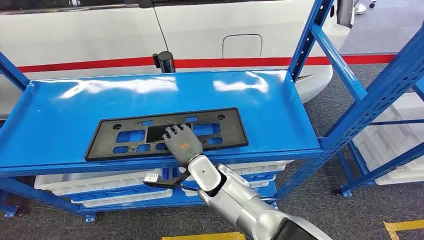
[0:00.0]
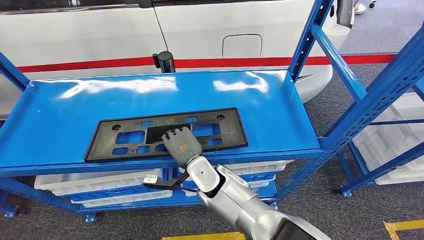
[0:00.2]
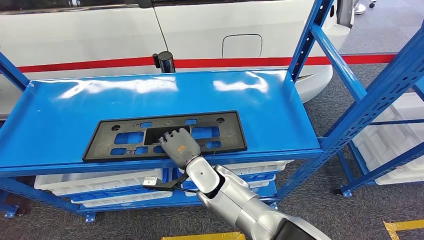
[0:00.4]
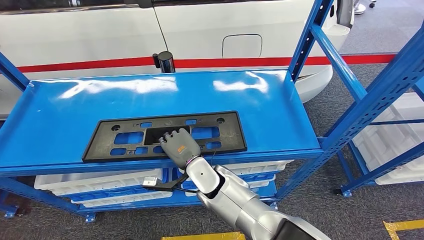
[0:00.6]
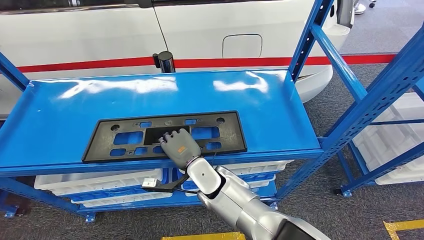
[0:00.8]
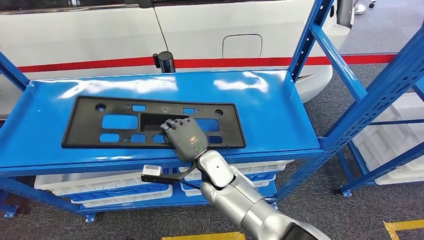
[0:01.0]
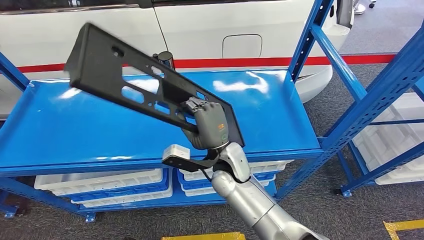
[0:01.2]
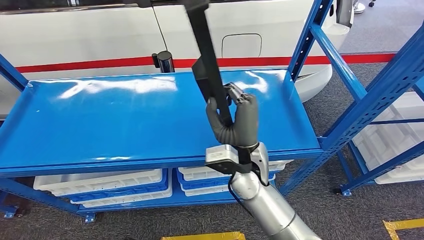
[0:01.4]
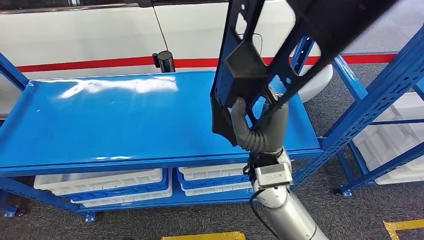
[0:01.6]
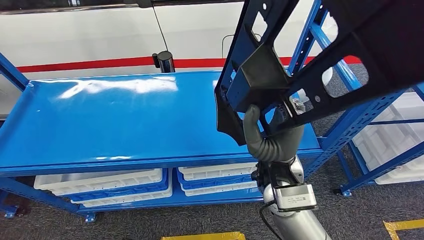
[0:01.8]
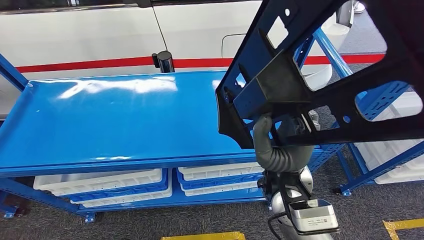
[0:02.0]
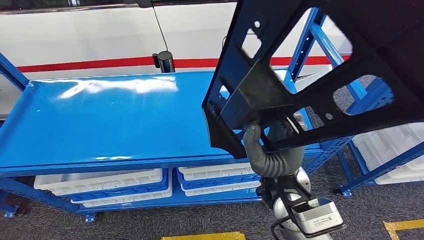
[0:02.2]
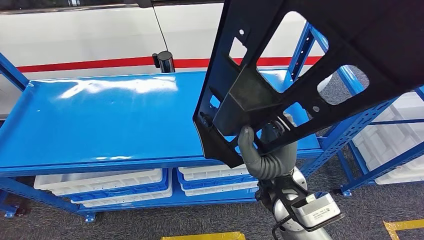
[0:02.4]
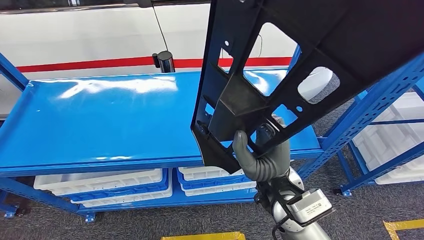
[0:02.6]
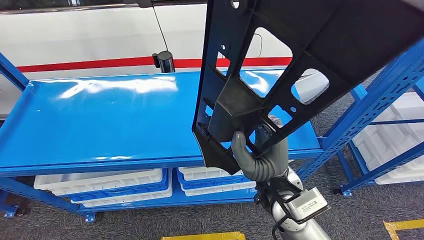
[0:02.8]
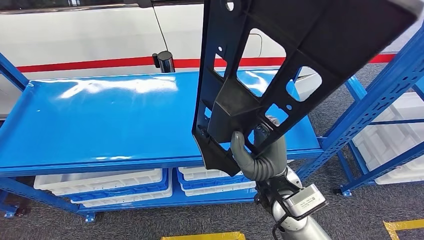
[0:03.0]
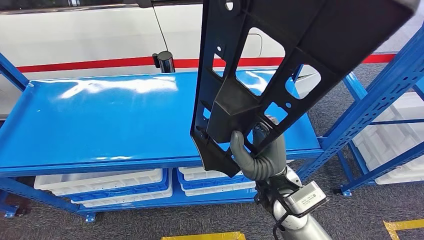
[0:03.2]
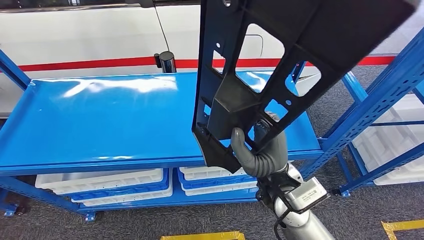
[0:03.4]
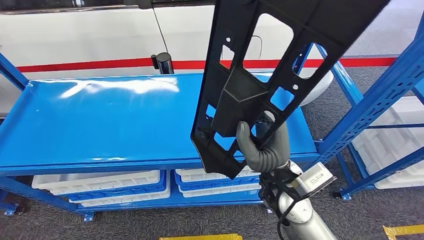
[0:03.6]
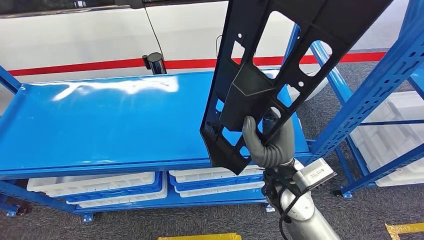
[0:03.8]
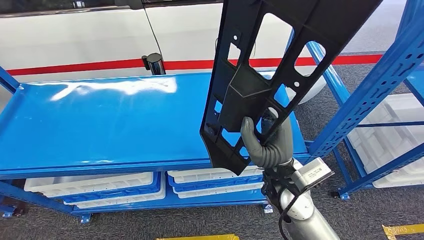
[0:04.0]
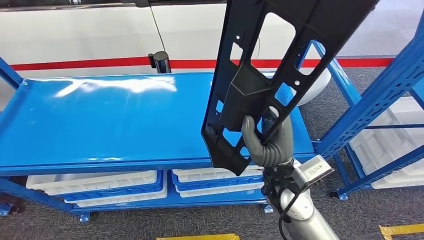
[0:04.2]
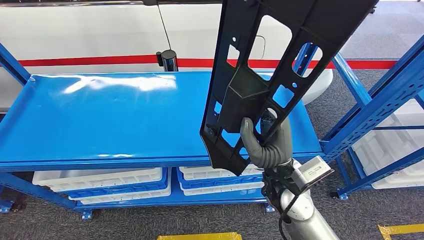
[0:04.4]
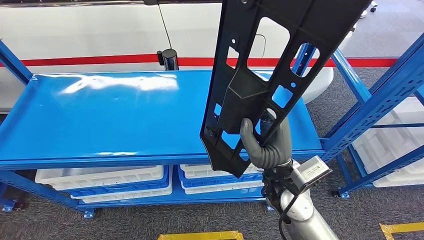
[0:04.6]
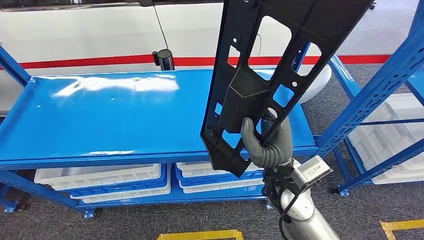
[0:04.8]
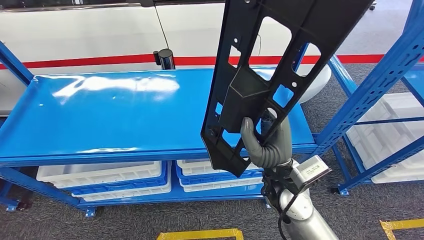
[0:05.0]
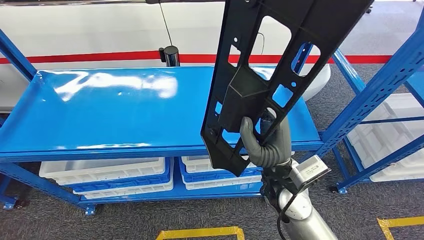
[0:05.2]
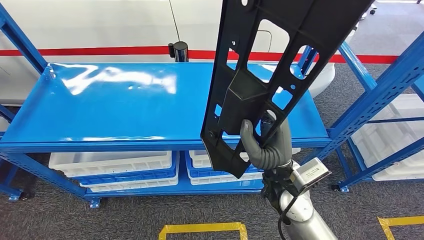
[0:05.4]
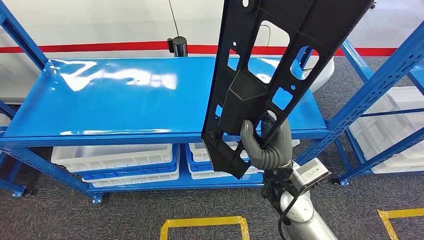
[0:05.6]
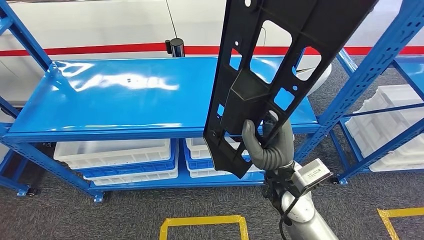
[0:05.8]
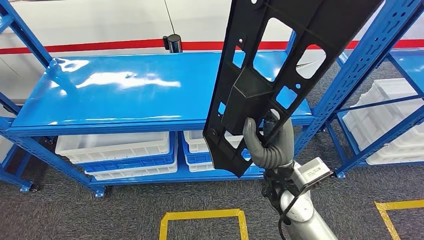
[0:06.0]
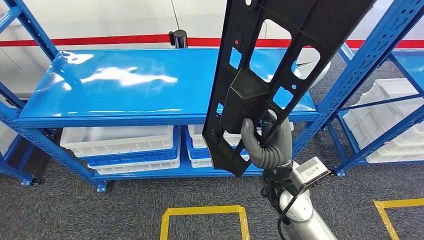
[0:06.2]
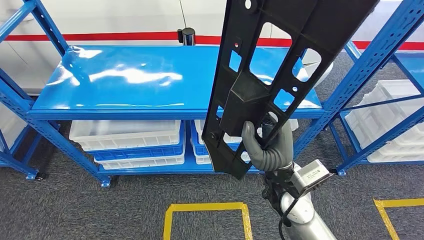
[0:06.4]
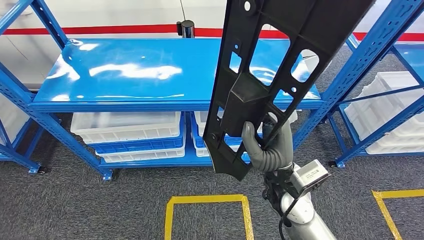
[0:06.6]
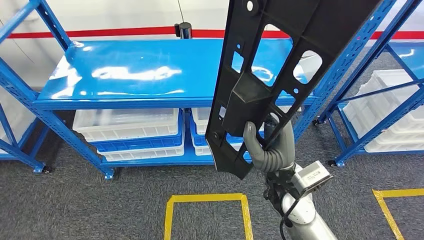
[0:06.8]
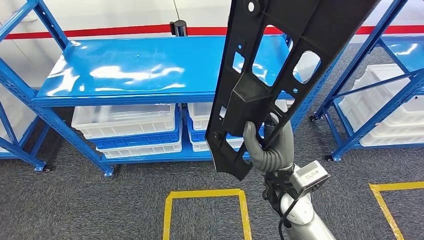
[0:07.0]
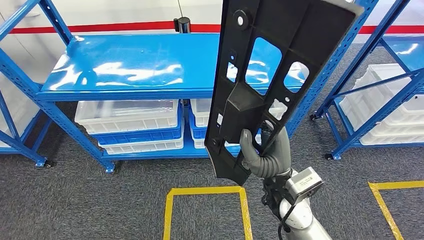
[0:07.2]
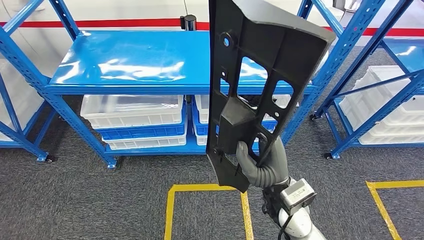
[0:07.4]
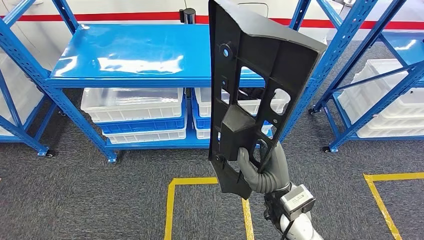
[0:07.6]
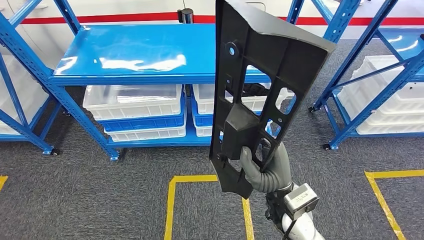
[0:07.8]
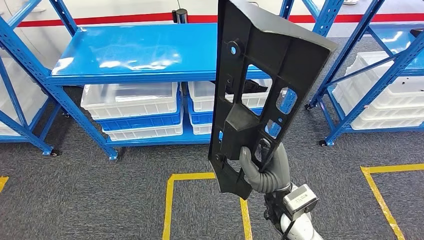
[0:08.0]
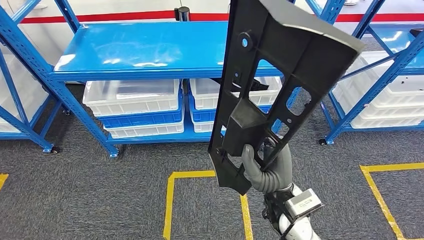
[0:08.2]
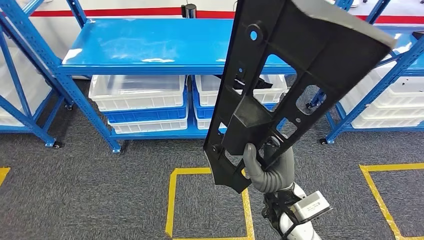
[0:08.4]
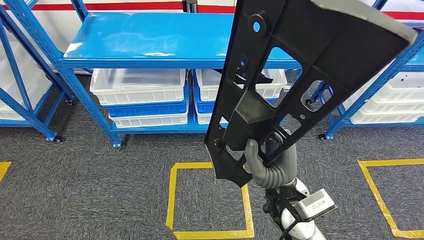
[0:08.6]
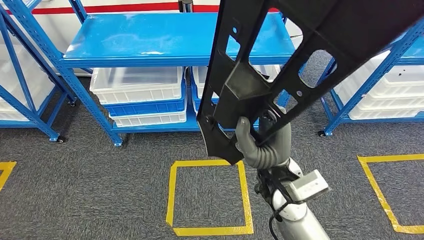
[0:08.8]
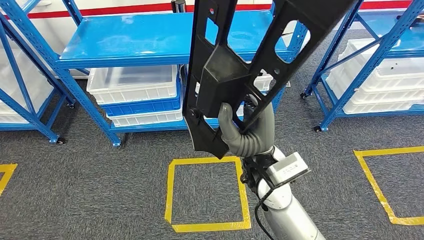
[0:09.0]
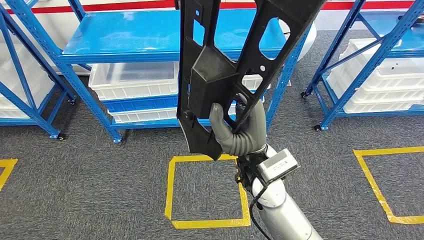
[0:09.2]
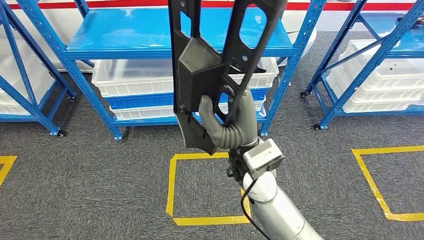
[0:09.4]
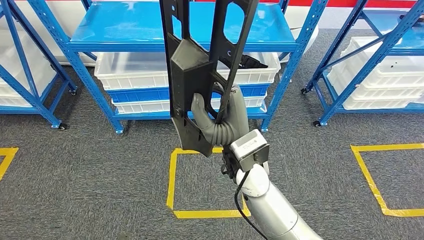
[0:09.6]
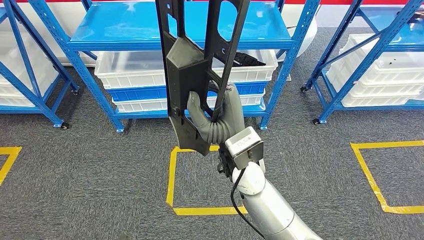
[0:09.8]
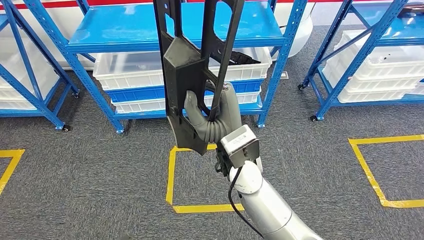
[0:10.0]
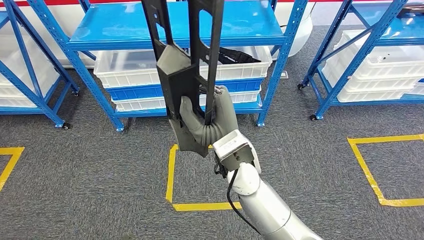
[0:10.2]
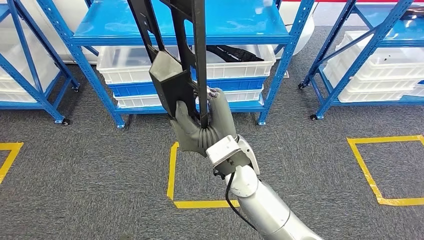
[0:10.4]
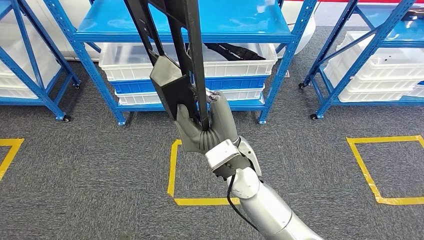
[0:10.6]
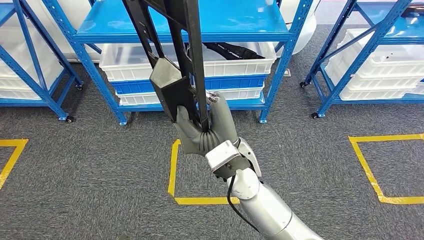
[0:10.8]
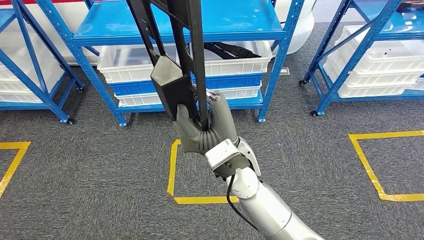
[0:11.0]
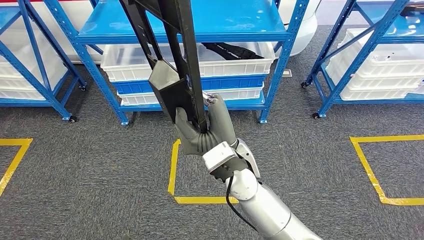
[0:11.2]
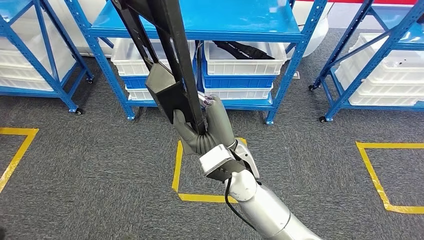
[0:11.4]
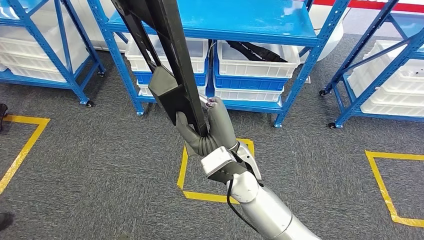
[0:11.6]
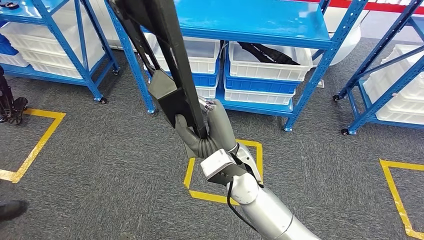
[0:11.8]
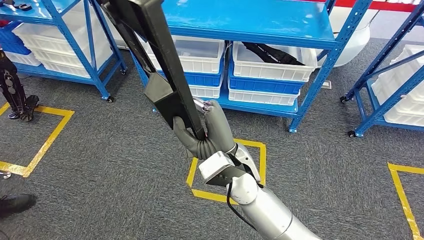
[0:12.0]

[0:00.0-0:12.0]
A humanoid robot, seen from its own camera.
Step, 0:00.0 to 0:04.0: Pick up the large material from the shelf.

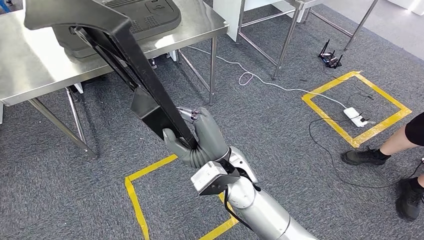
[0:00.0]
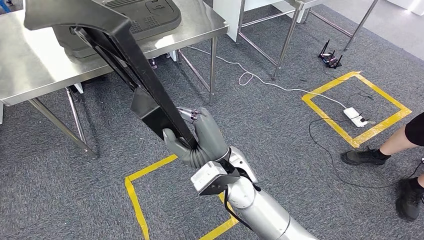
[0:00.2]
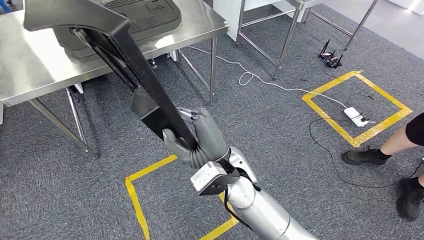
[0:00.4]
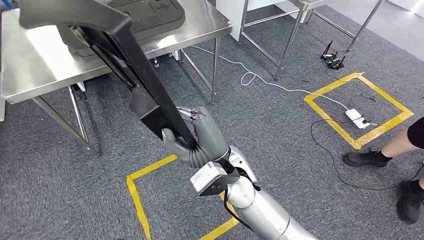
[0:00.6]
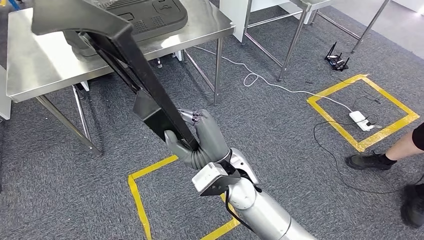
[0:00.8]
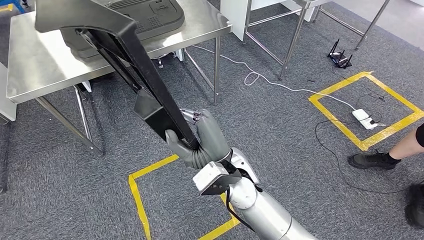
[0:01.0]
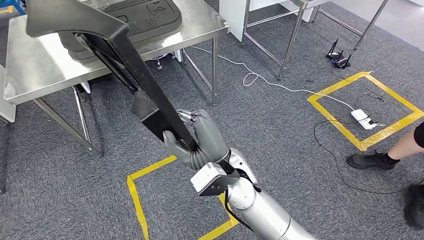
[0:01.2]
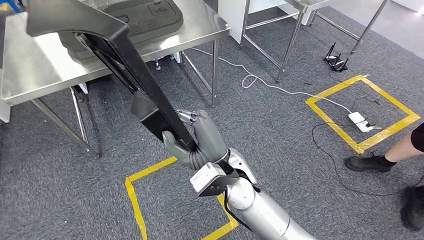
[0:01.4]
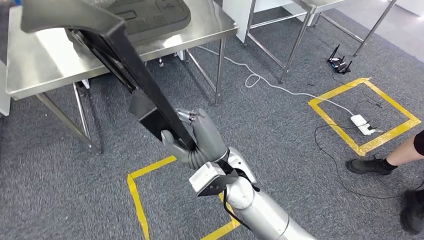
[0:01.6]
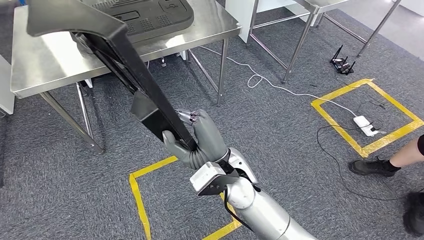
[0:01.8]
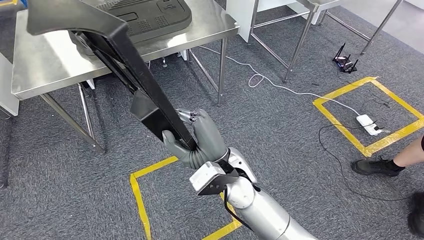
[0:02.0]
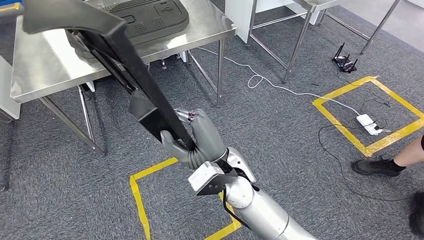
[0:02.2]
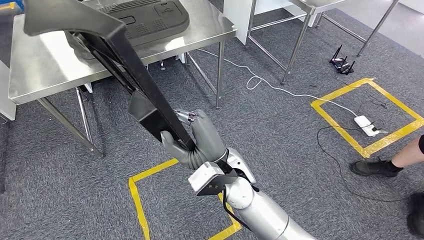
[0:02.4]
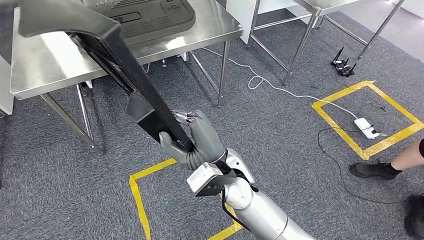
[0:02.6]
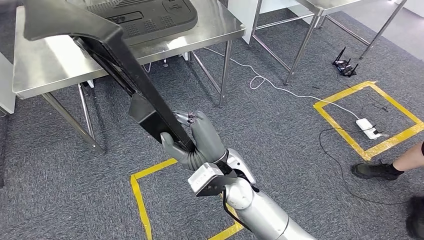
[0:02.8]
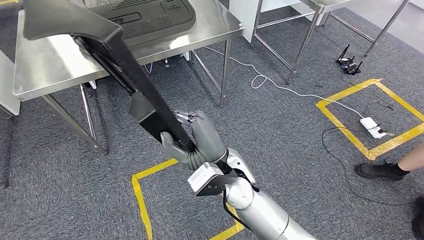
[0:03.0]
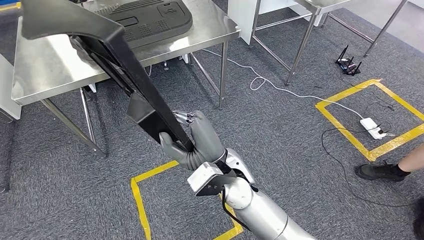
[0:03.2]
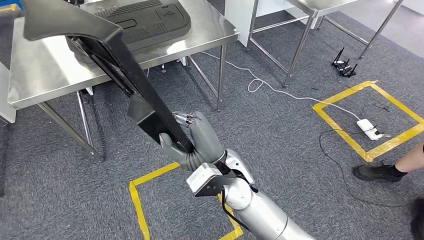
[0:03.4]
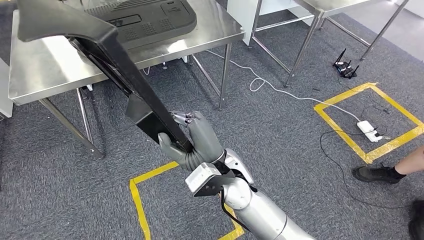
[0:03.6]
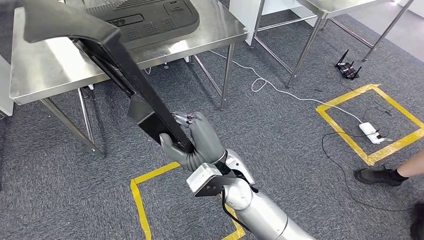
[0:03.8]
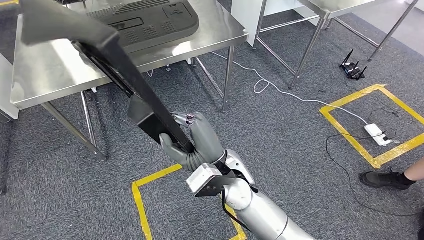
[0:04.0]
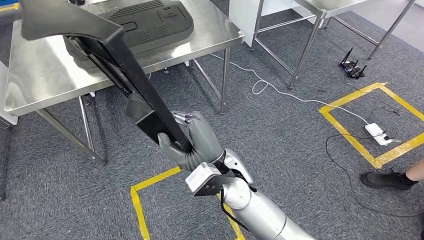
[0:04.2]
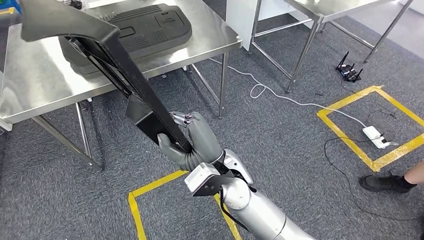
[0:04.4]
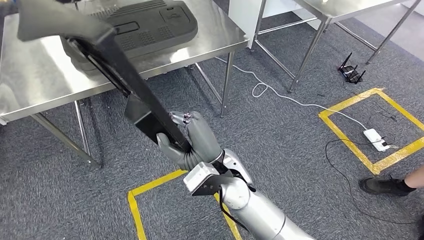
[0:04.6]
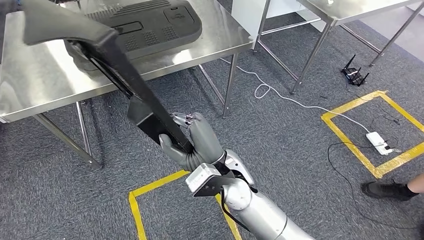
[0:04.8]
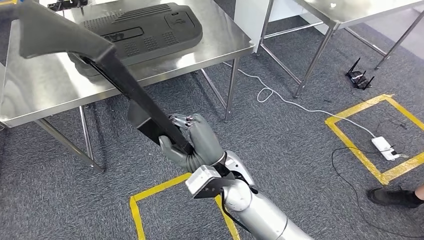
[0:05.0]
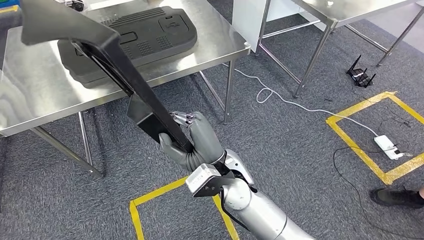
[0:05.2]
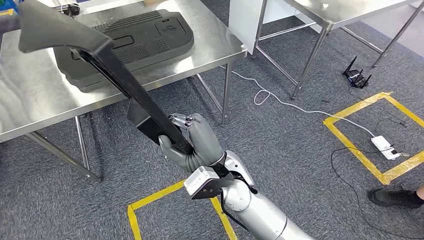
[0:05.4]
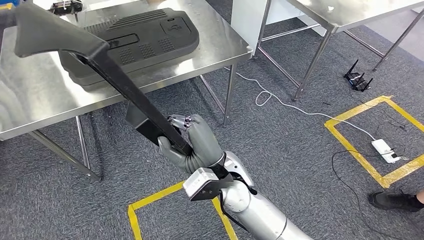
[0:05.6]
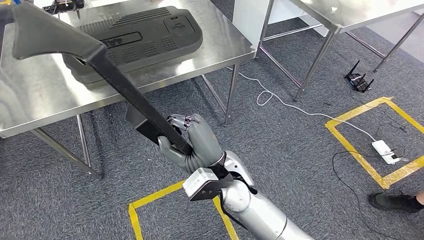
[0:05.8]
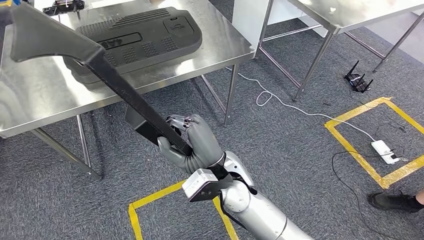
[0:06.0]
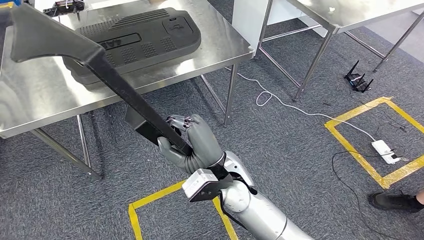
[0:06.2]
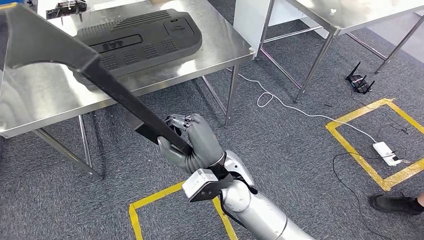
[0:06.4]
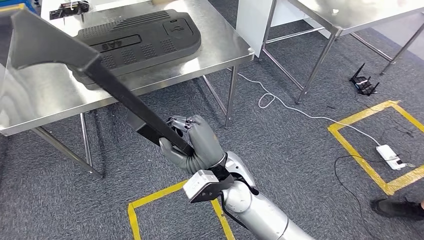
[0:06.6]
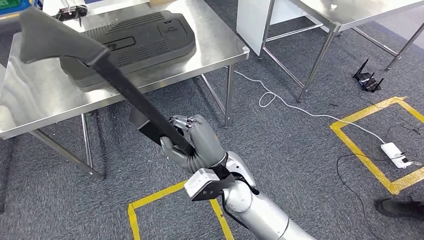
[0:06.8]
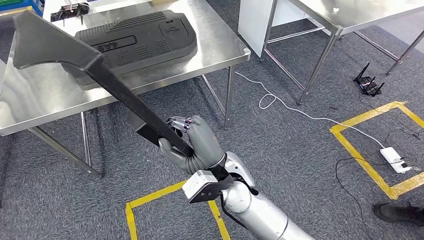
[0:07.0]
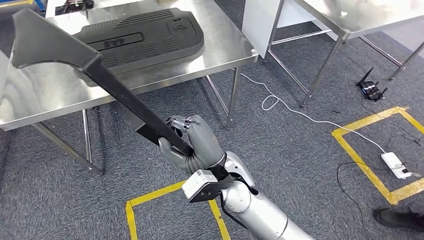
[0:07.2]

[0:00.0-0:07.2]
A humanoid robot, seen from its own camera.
0:00.0 to 0:01.4: Neither hand changes place.
